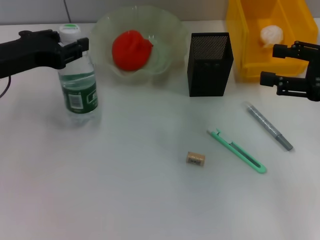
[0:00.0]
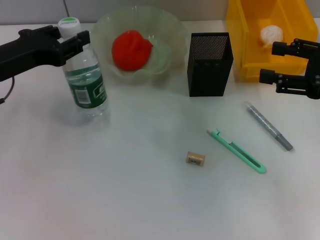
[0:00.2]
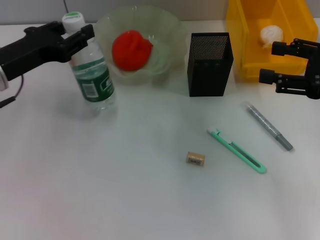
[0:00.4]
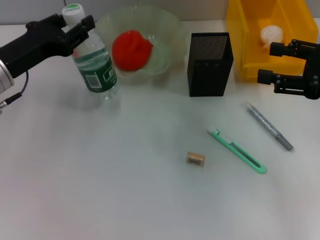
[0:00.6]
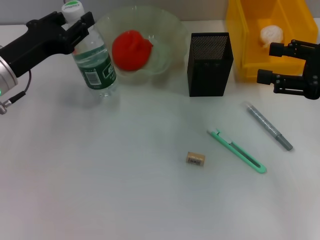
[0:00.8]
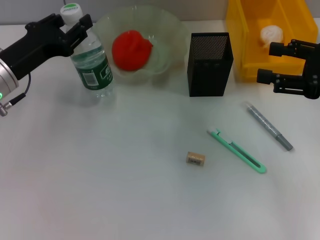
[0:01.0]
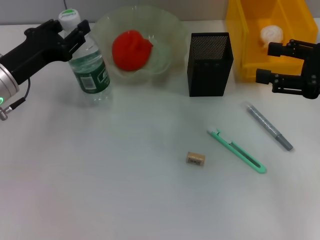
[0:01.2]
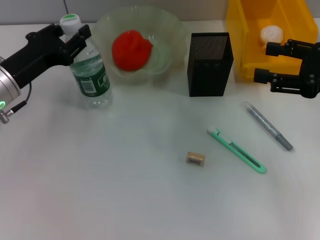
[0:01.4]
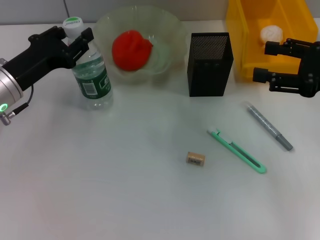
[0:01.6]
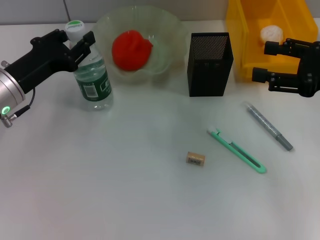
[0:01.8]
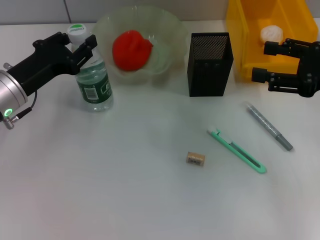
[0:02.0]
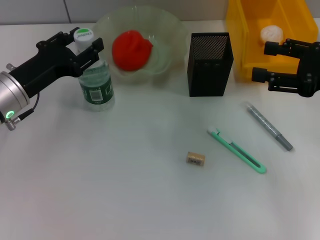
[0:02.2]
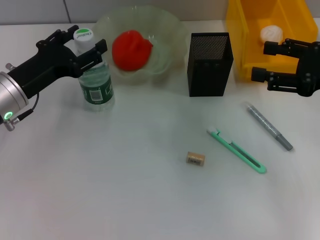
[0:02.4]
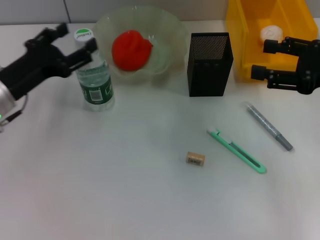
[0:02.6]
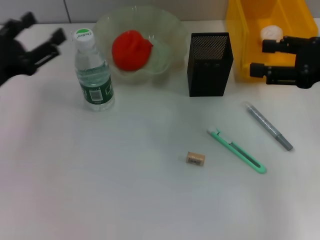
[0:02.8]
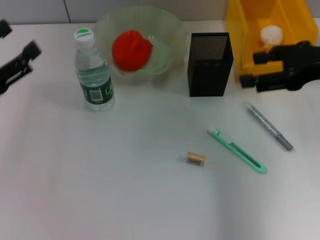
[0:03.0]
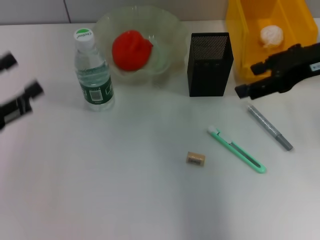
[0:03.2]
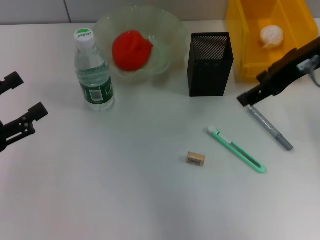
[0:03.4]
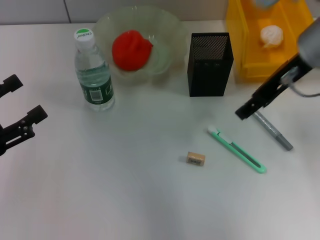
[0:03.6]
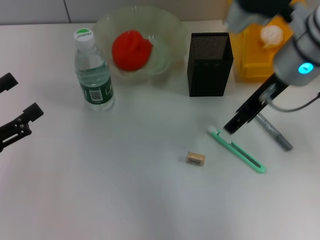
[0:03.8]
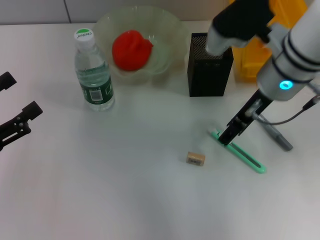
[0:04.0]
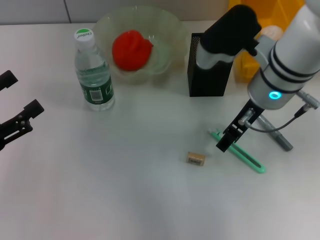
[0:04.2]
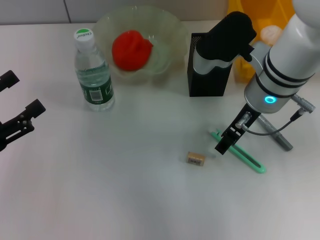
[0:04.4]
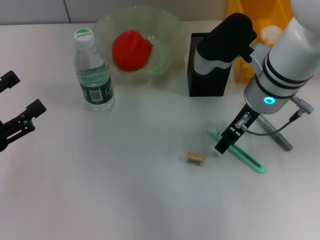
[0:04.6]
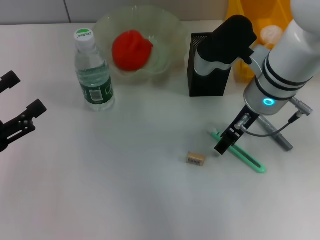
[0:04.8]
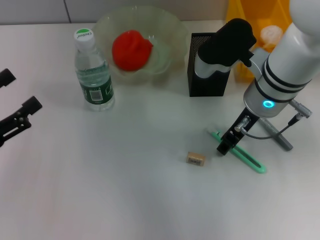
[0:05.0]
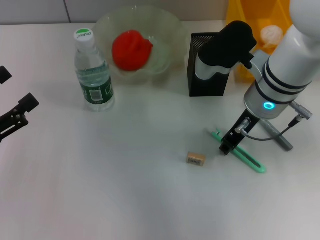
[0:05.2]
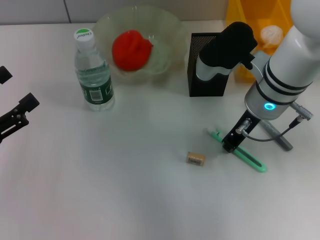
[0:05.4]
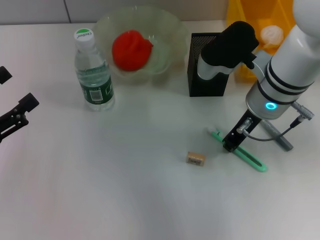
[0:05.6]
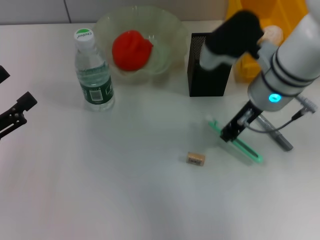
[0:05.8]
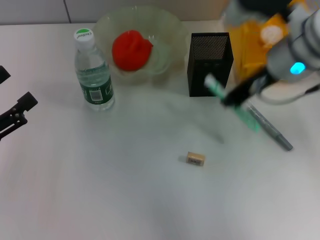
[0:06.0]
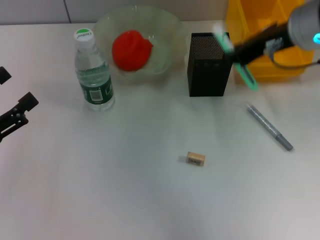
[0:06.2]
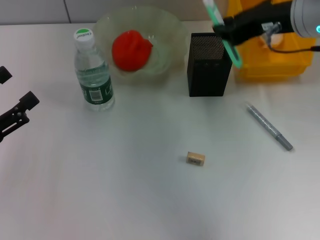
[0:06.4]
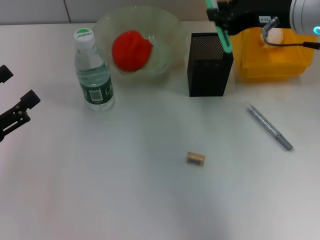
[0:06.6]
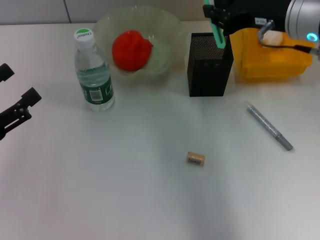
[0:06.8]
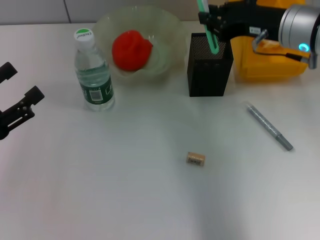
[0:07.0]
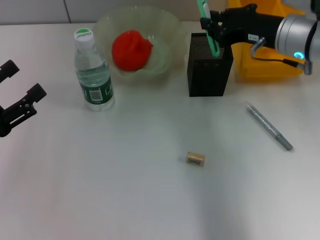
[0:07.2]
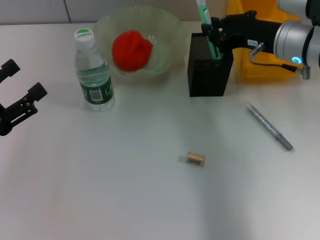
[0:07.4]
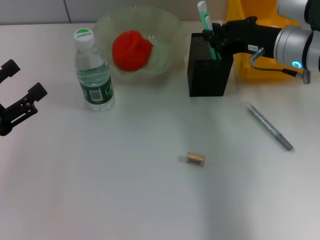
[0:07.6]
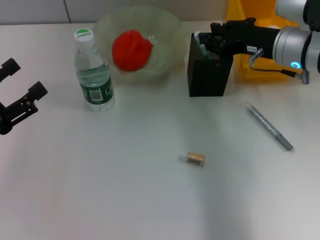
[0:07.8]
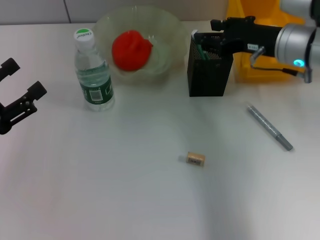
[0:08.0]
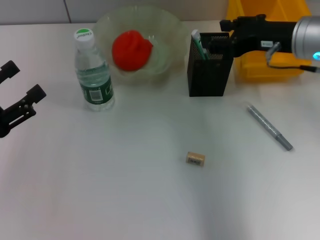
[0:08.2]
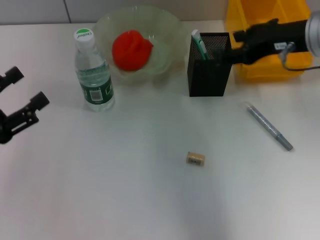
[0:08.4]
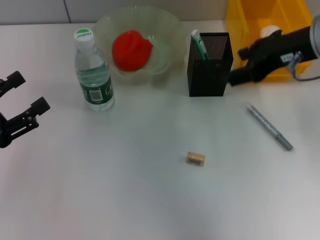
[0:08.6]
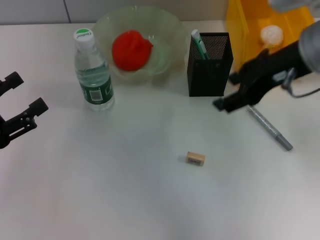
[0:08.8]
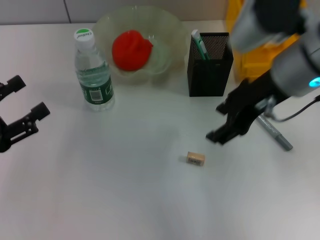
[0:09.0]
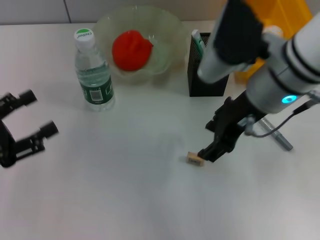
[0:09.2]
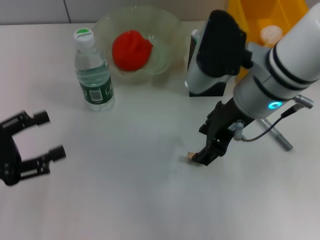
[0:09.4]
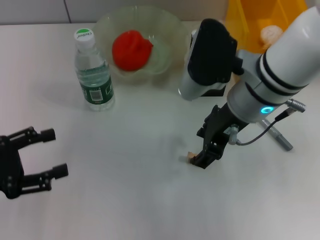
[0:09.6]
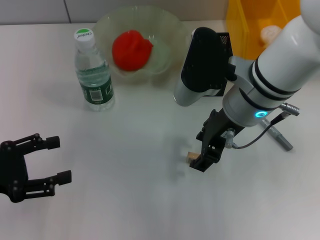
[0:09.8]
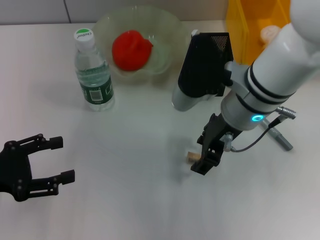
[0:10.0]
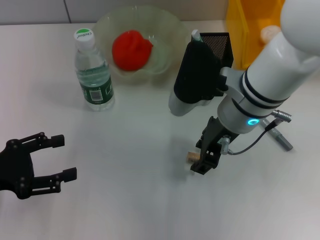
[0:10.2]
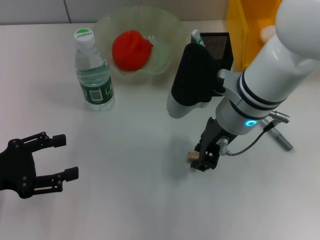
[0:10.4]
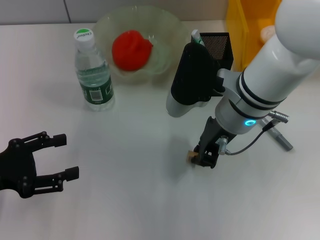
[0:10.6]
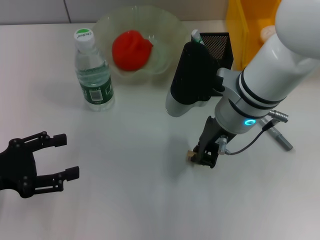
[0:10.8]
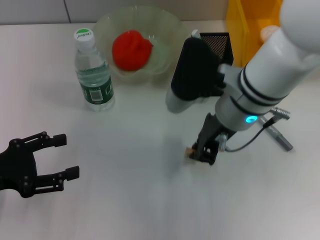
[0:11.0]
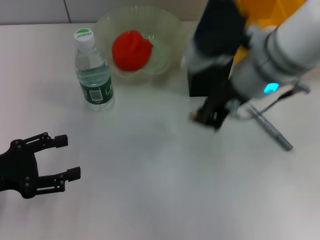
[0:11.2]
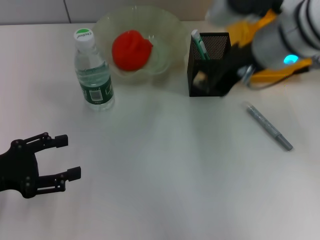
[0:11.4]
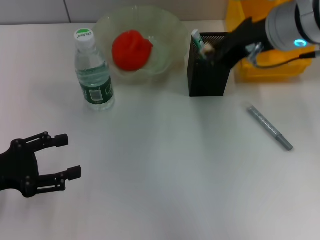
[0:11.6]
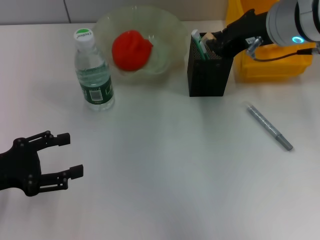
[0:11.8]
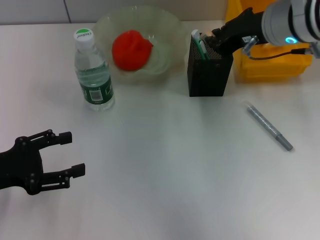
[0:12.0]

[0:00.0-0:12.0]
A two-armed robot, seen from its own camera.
Step, 0:00.0 to 0:02.0: Place the water bottle on the table with the left hand.
Step, 0:02.2 to 0:05.4: Grab the blue utility knife with the right hand.
Step, 0:05.8 to 0:07.8: Place the blue utility knife into the pen holder with the right hand.
Step, 0:08.0 to 0:10.8: Grab the eraser with the right hand.
0:00.0 to 0:01.6: The left gripper heads downward, covering about 5 cm.
0:01.6 to 0:03.0: The right gripper changes place by roughly 5 cm. Meanwhile the left gripper travels backward and to the left by roughly 10 cm, and opens.
0:03.0 to 0:04.4: The right gripper goes some 15 cm to the left; the left gripper ends up approximately 5 cm from where it was.
0:04.4 to 0:06.0: The right gripper shifts about 5 cm upward, and closes.
0:06.0 to 0:07.6: The right gripper shifts about 5 cm downward.
0:07.6 to 0:09.0: The right gripper is displaced upward, backward and to the left by about 10 cm, and opens up.
0:09.0 to 0:10.4: The right gripper goes about 10 cm downward and to the left.
0:10.4 to 0:12.0: The right gripper travels upward, to the right and forward by about 10 cm, and closes.

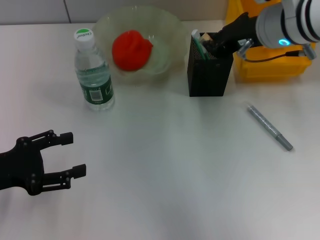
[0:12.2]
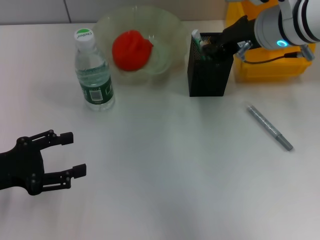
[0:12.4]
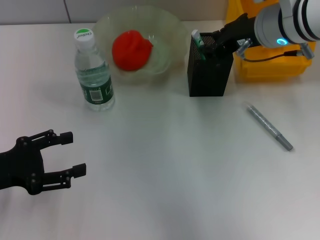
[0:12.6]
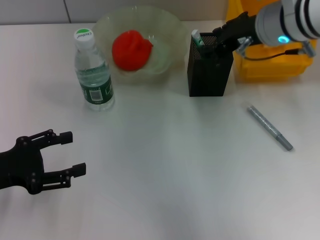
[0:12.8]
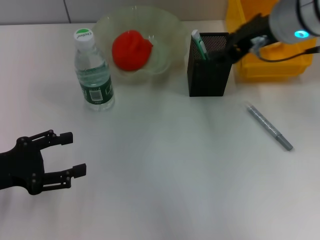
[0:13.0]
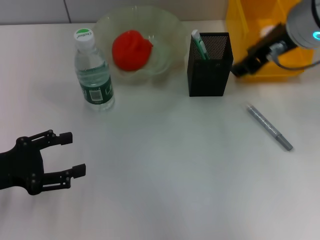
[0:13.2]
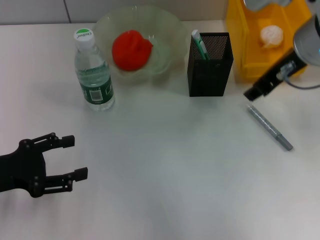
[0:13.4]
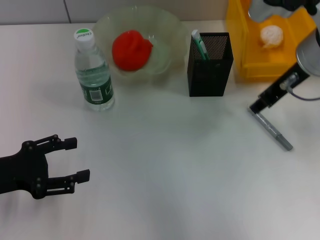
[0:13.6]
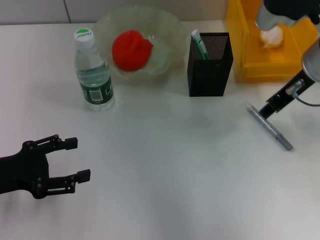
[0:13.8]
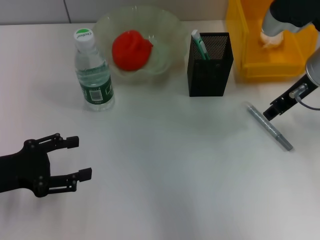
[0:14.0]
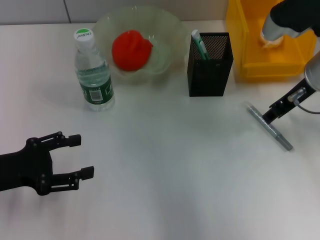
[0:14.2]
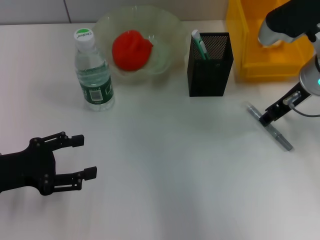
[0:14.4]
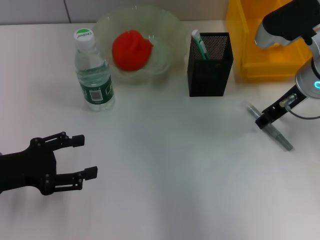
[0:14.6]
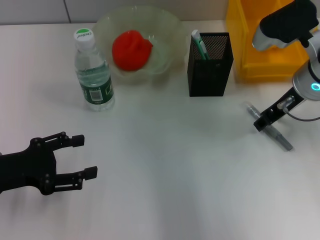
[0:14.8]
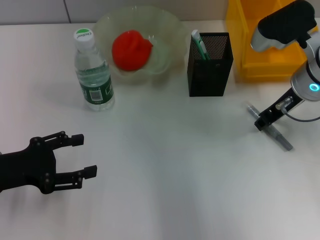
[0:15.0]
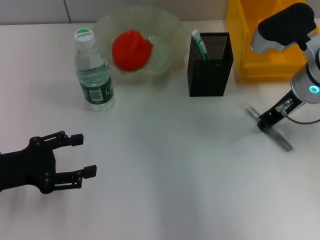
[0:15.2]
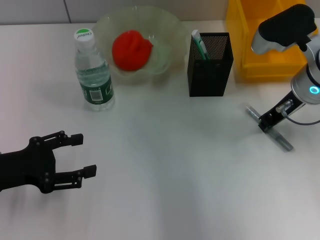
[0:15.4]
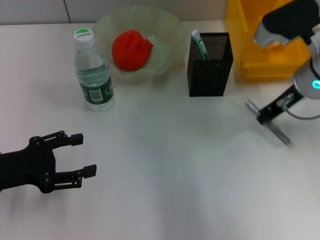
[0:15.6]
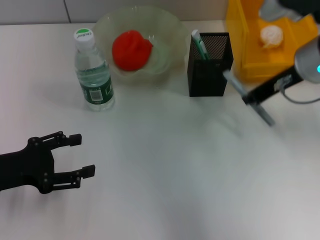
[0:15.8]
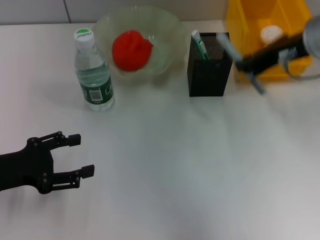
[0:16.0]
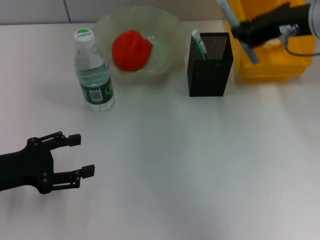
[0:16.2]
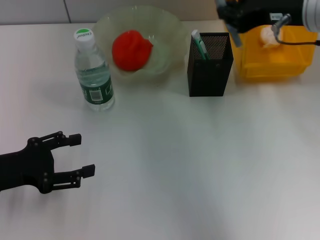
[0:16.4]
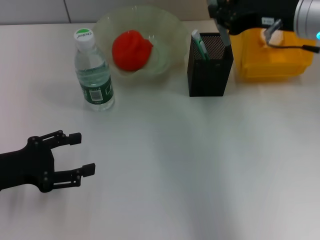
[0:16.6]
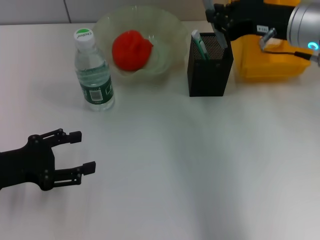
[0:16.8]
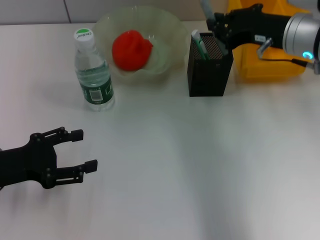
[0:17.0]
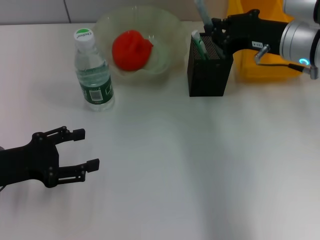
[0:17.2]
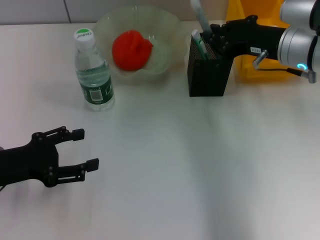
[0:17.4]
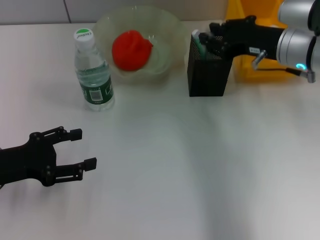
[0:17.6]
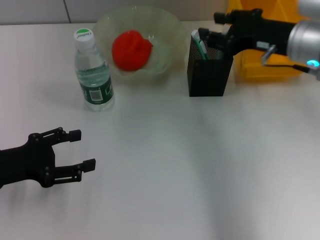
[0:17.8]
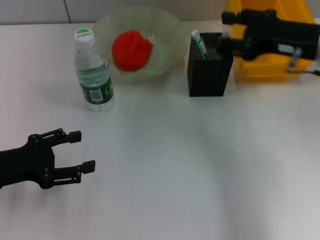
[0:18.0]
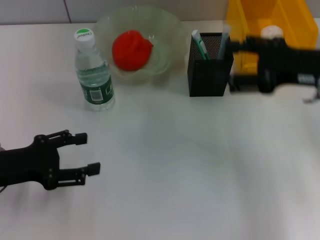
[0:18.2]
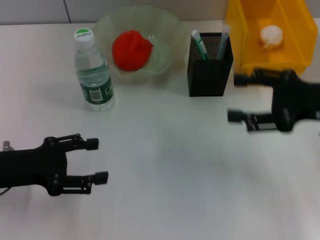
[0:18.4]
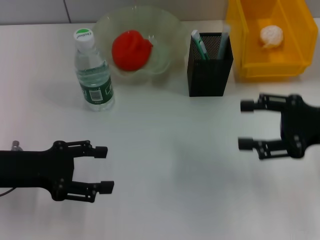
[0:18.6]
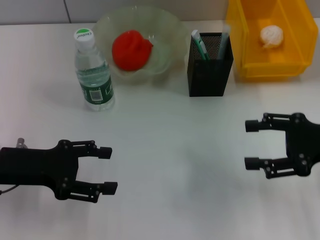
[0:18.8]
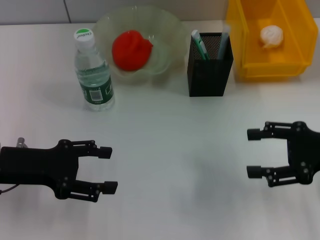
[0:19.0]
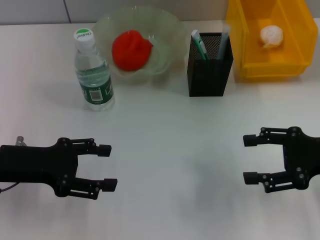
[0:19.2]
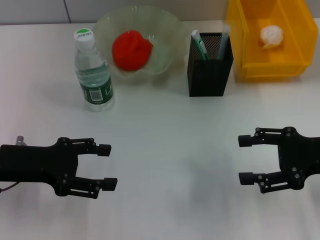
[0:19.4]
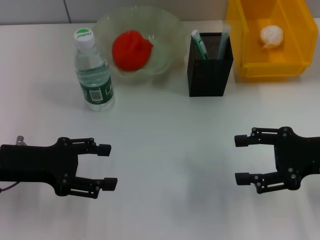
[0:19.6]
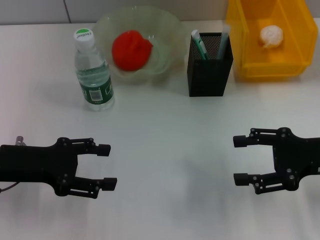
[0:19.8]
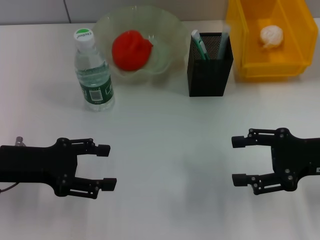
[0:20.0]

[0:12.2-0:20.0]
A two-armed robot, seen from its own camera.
Step, 0:12.8 to 0:15.4: Grab the gray glue with the right hand.
Step, 0:15.6 to 0:17.6: Place the gray glue into the pen holder with the right hand.
0:12.2 to 0:13.8: The right gripper shifts by some 5 cm, and opens up.
0:13.8 to 0:15.4: The right gripper moves downward, roughly 5 cm, and closes.
0:16.8 to 0:18.4: The right gripper goes about 10 cm backward and to the right, and opens its fingers.
0:18.4 to 0:20.0: The right gripper shifts by approximately 5 cm.

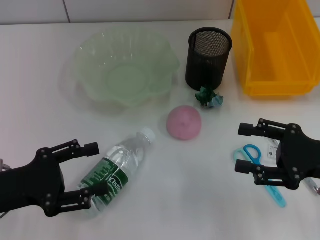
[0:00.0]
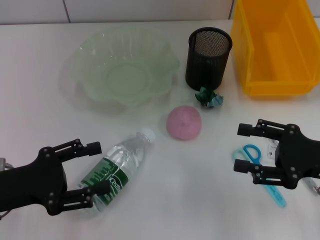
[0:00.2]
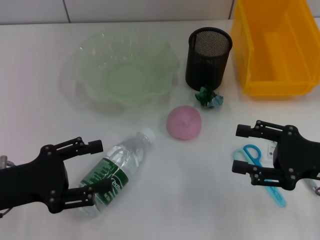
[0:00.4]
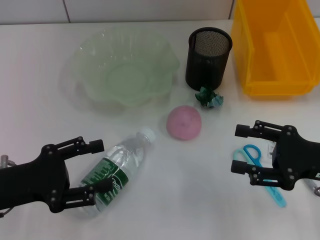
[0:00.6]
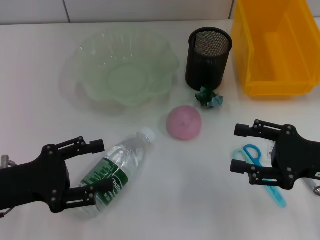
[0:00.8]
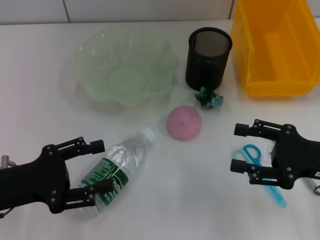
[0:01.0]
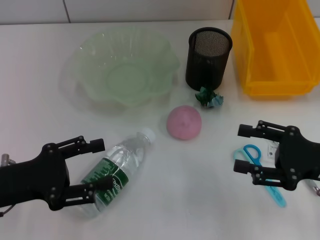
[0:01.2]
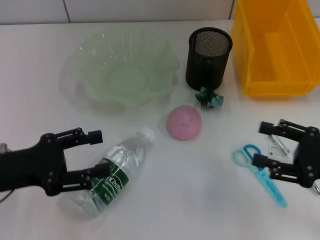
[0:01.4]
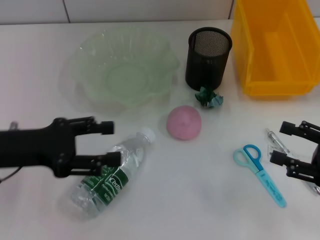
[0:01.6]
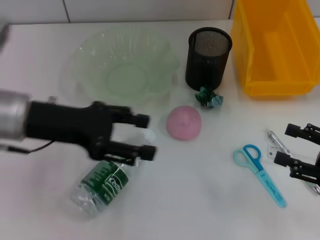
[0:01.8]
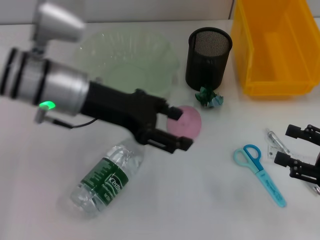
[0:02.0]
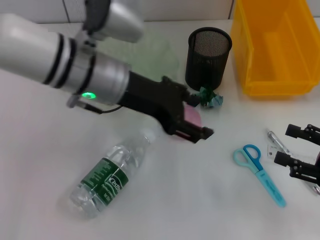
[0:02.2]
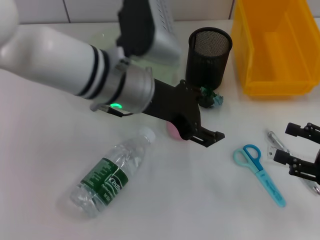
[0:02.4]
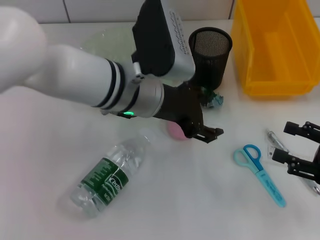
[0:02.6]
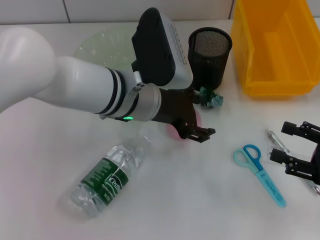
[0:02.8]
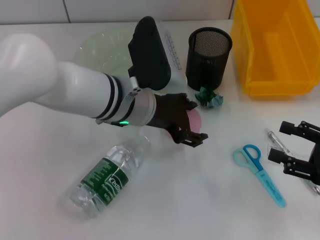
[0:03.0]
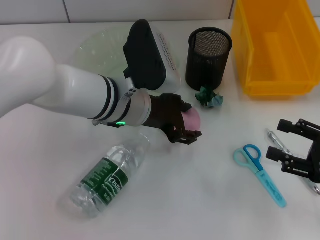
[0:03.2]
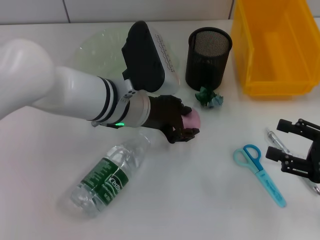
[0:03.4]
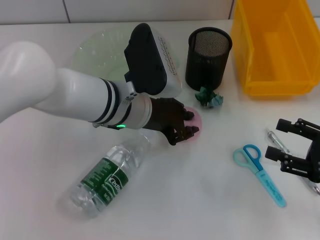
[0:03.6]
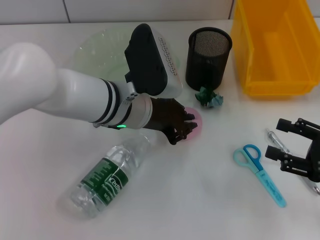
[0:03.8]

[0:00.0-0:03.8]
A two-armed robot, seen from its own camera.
0:00.0 to 0:01.2: Neither gripper changes place.
0:01.2 to 0:02.6: The left gripper is displaced to the right and forward by some 25 cm. Meanwhile the right gripper moves to the right, roughly 5 cm.
0:02.6 to 0:03.8: The left gripper closes.
